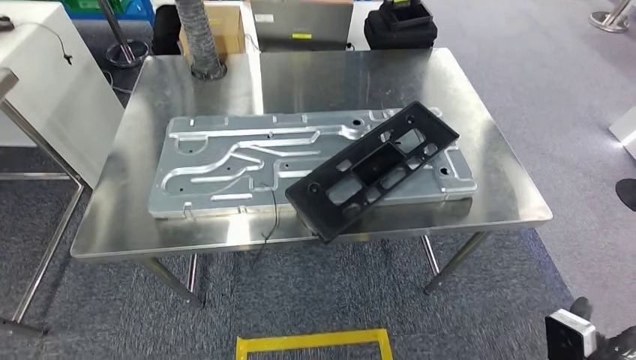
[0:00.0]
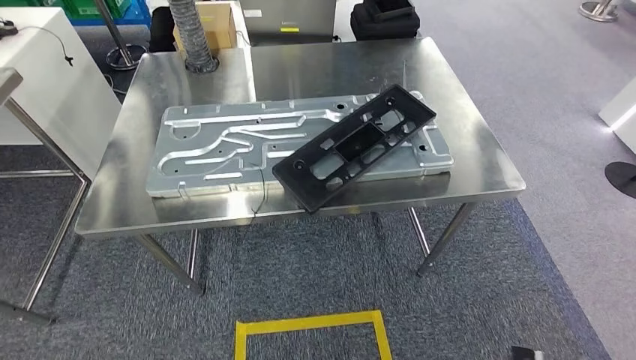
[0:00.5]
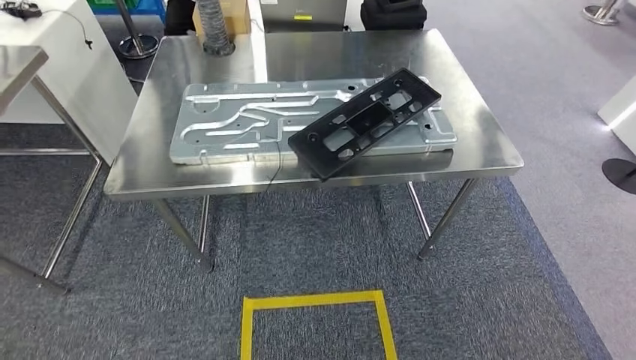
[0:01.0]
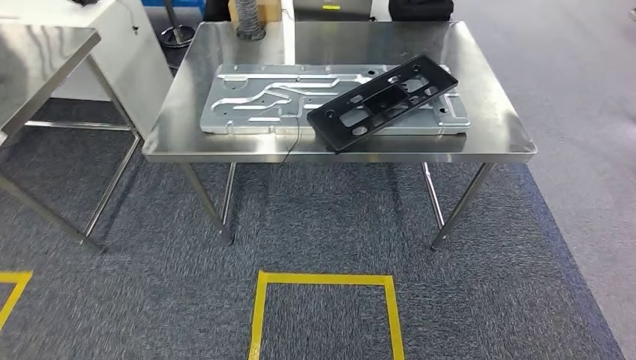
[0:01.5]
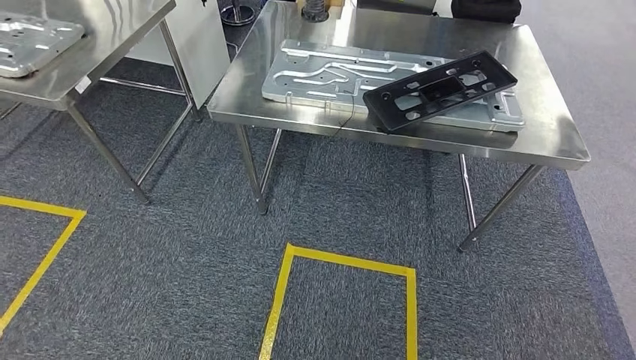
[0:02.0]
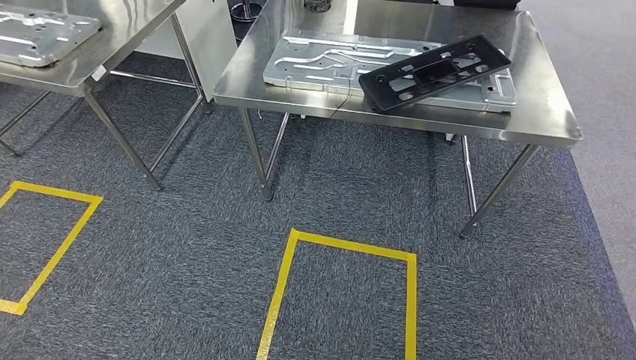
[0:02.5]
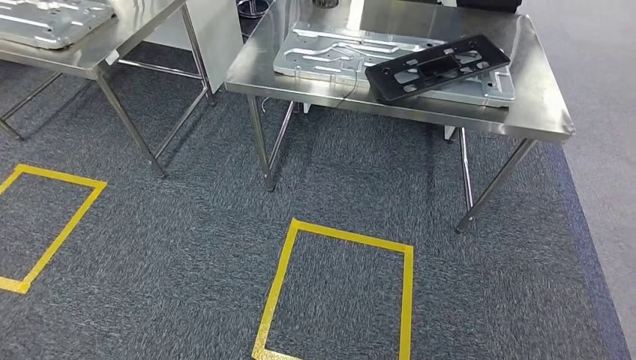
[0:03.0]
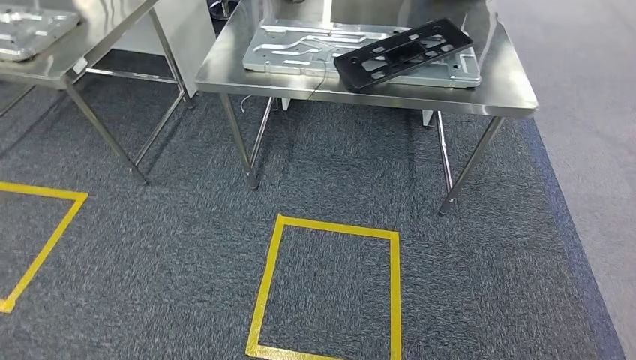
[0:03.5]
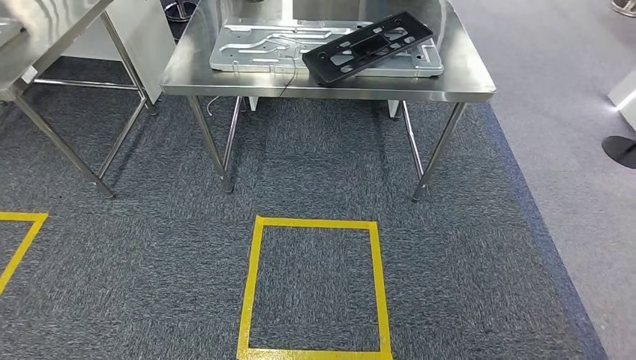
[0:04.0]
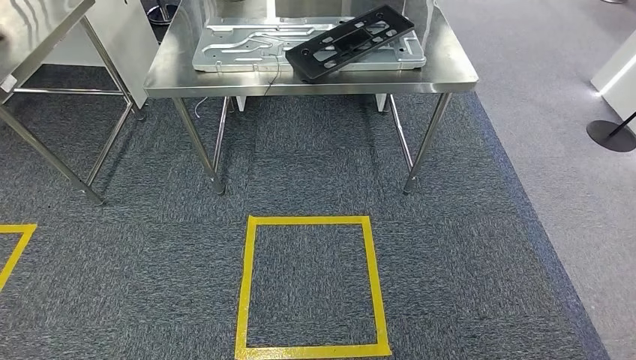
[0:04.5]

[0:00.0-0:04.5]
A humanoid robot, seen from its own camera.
Step, 0:00.0 to 0:04.5: Move to the initial position of the shelf.
